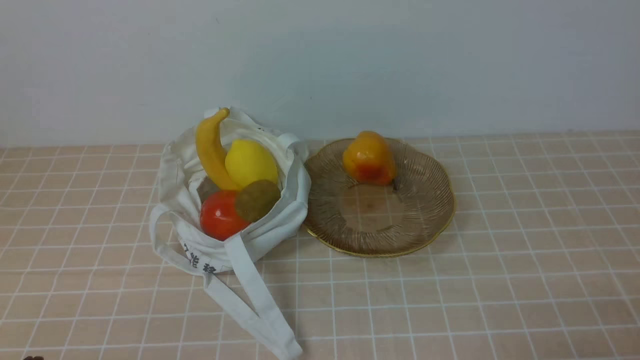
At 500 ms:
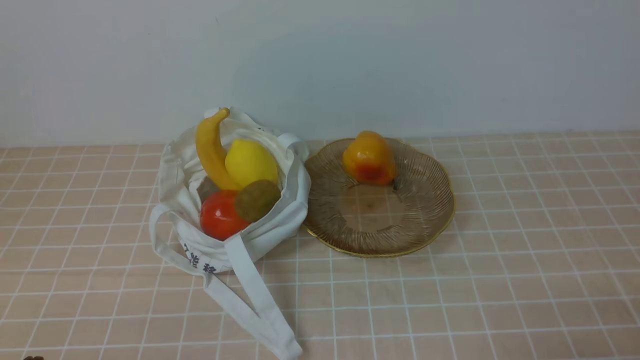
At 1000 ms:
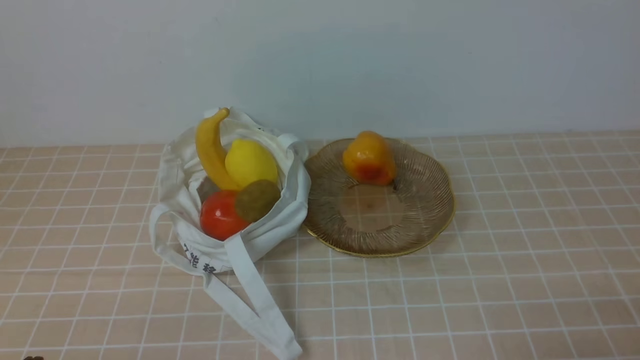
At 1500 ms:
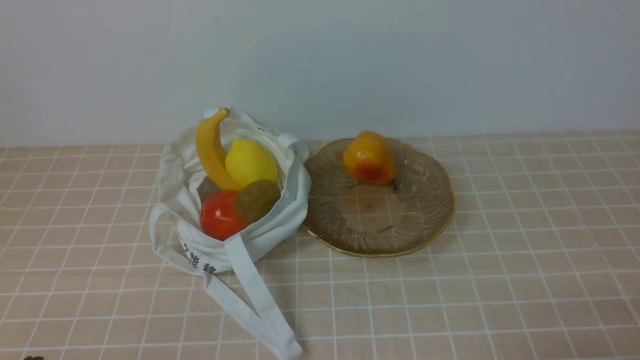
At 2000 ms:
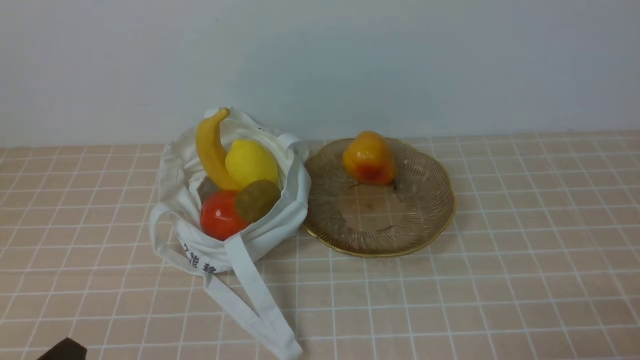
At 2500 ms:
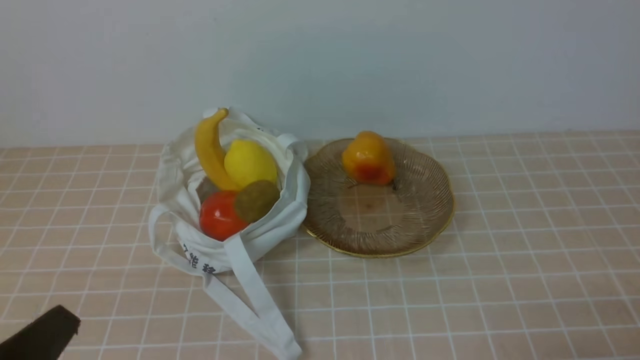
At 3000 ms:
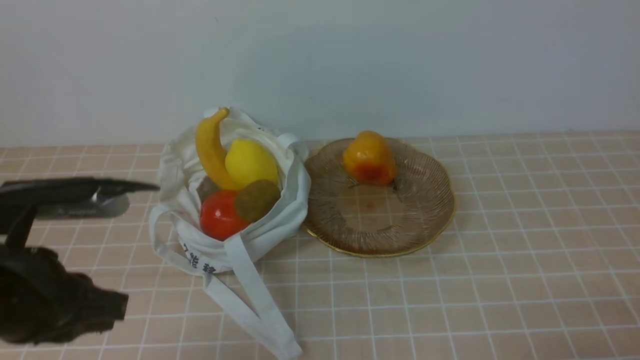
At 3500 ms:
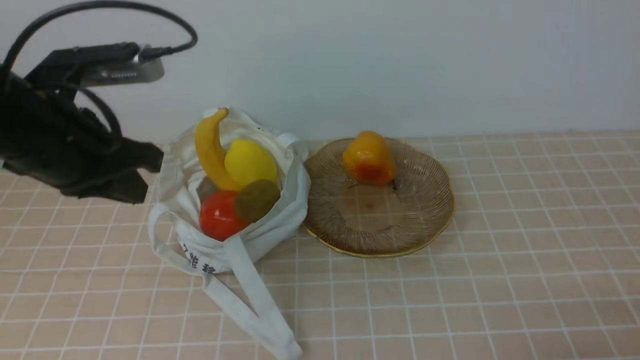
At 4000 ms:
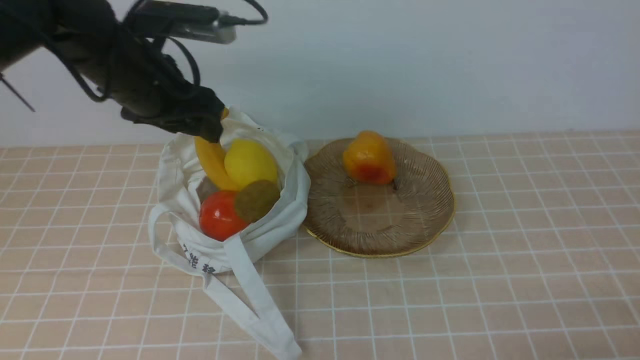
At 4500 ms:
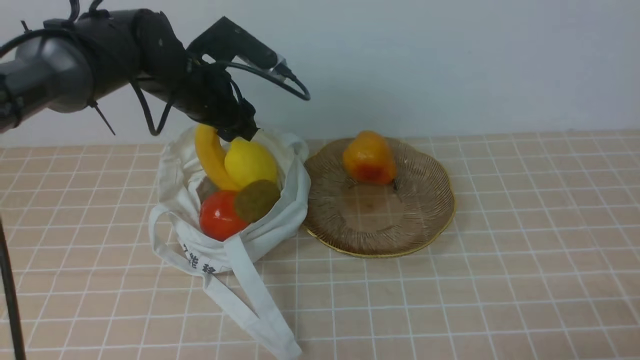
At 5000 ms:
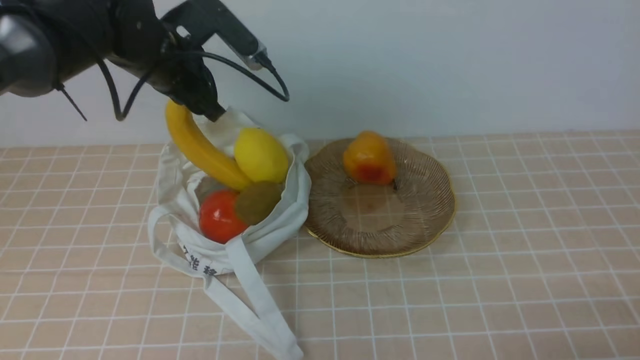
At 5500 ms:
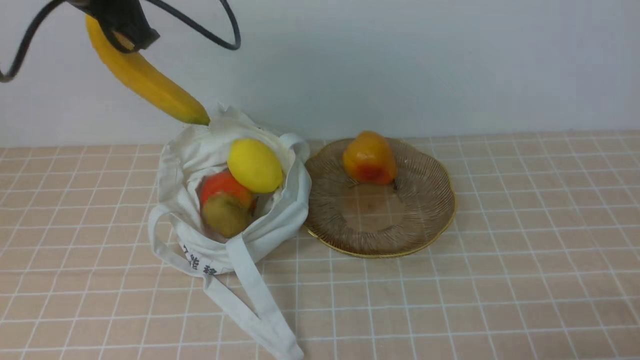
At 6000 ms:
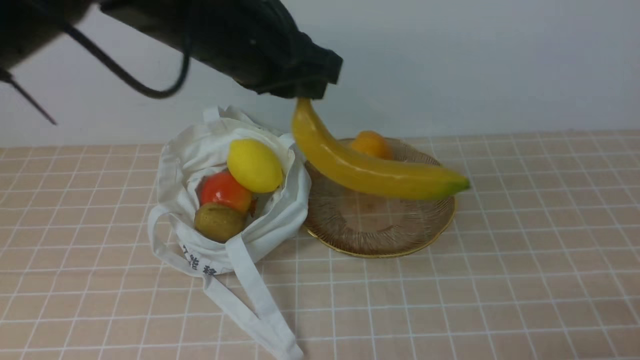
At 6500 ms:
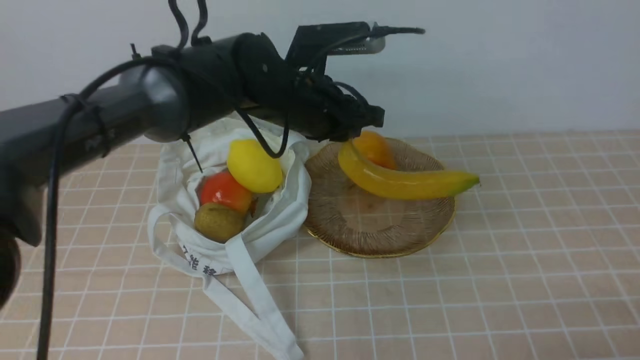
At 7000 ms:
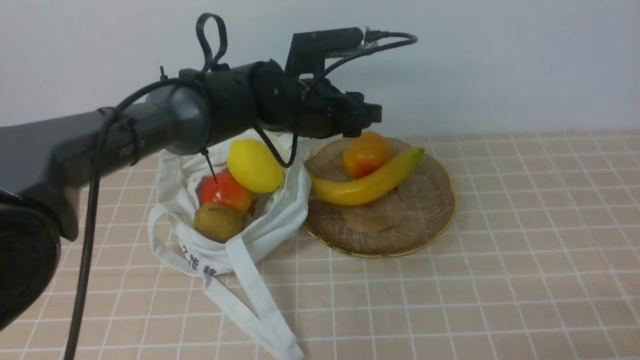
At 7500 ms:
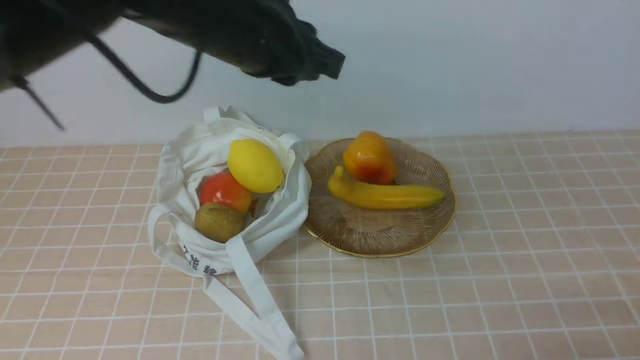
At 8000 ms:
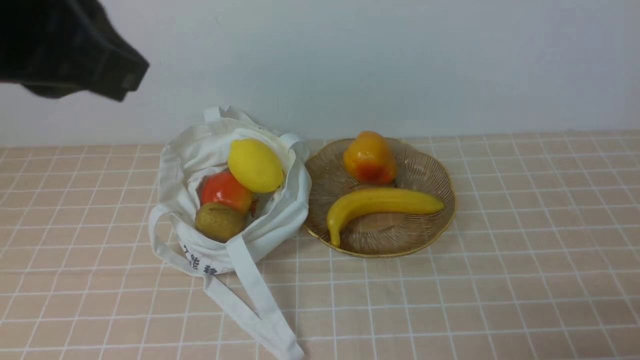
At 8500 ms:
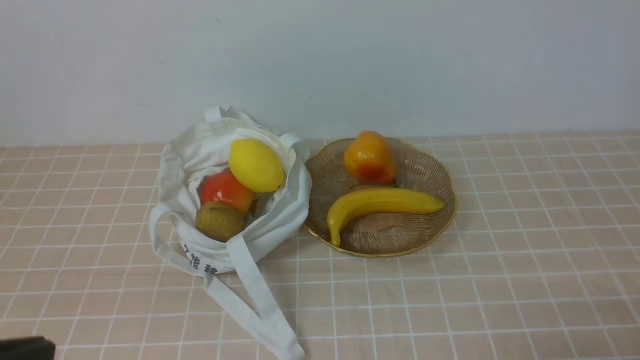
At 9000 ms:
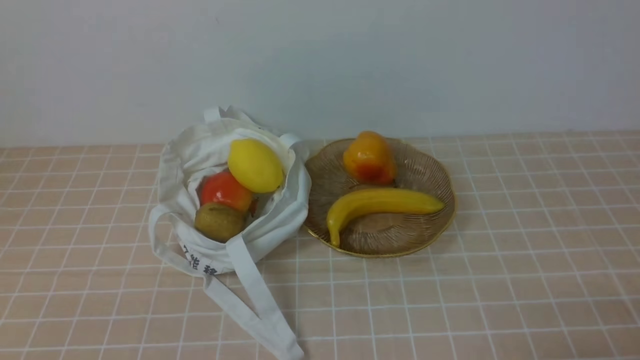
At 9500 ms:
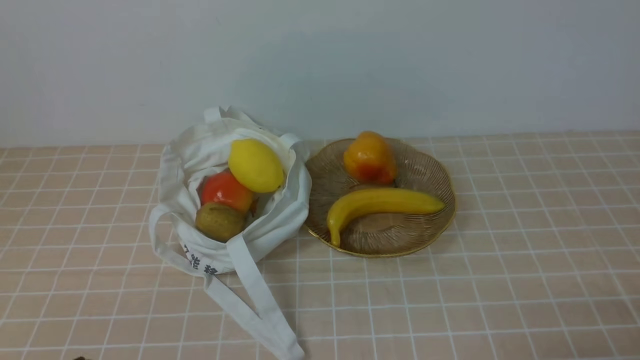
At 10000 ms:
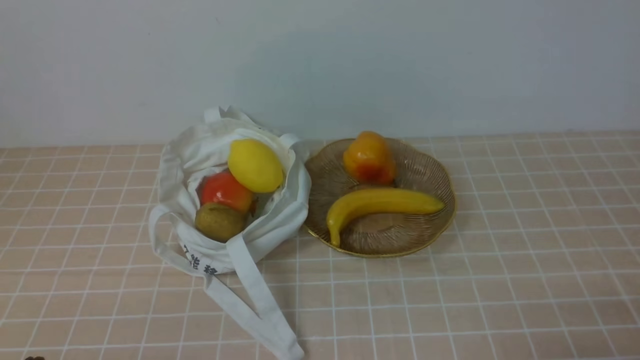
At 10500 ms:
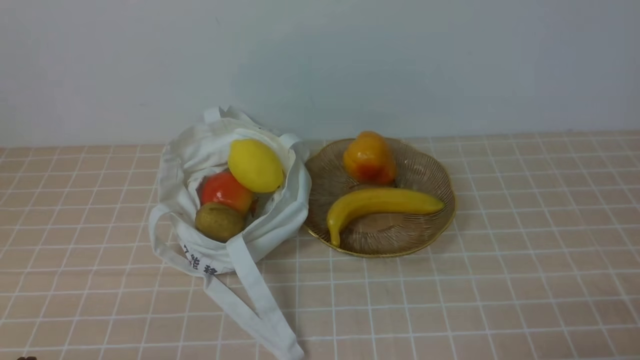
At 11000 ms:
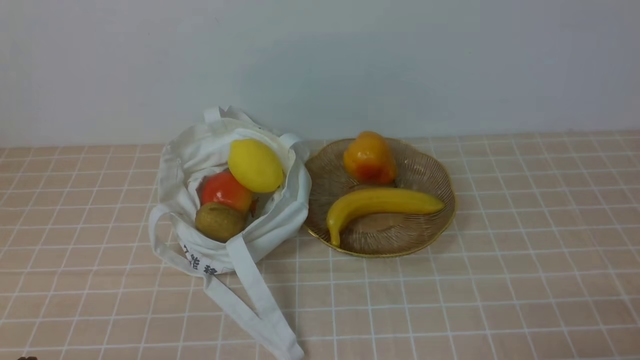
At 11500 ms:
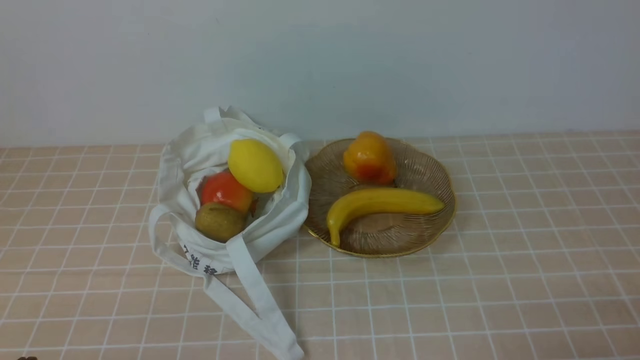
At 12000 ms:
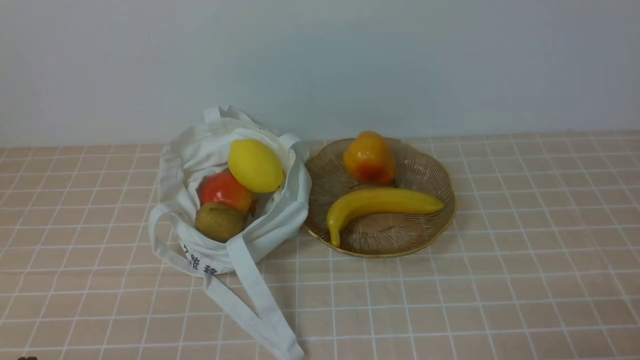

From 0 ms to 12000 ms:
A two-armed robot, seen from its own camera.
Step, from 0 ms to 5000 ms: use the left arm to grab a banana from the bag.
Step, from 5500 ms to 7000 ms: use the left arm to put the banana into the empty plate on the right.
From 2000 ms to 4000 ms: The left gripper shifts approximately 35 cm forward and upward, and opens its fingers.
From 4000 ms to 6000 ms: The left gripper travels to the right and upward by approximately 10 cm, and closes up.
From 6000 ms to 8000 ms: The left gripper moves backward and upward, approximately 15 cm, and opens and closes again.
From 8000 ms to 10000 ms: The left gripper heads downward and backward, covering some 30 cm.

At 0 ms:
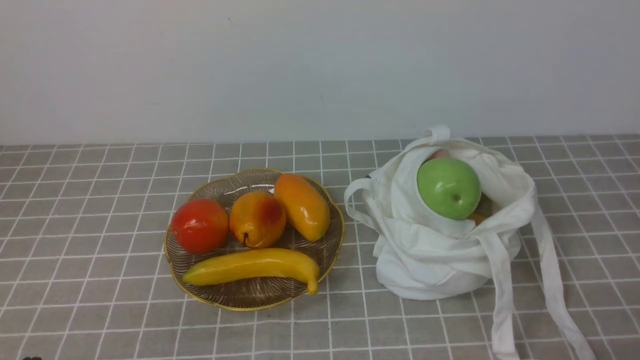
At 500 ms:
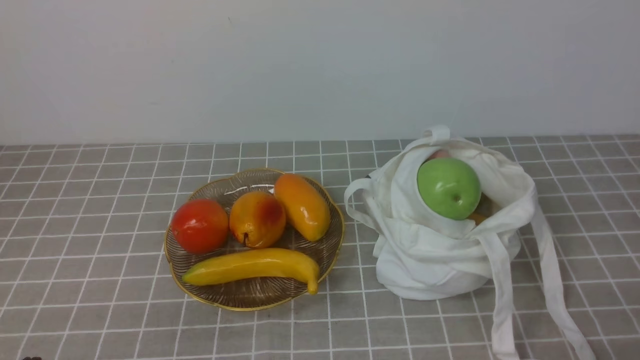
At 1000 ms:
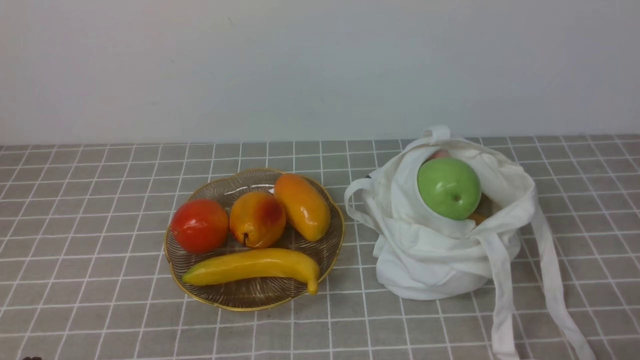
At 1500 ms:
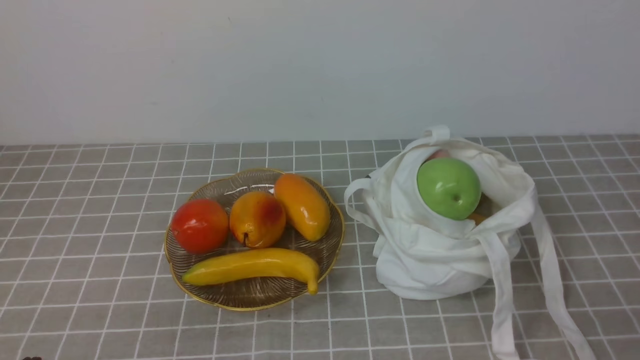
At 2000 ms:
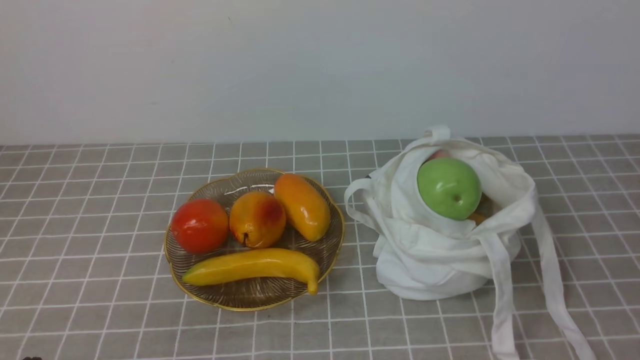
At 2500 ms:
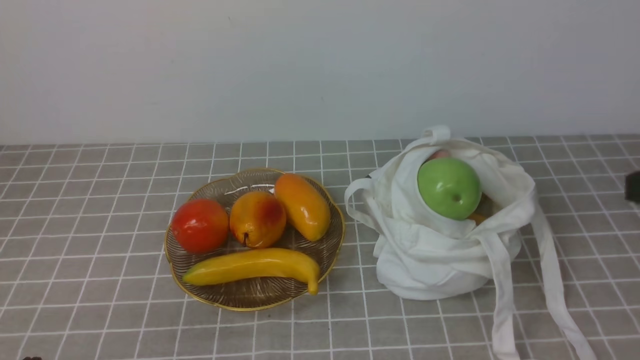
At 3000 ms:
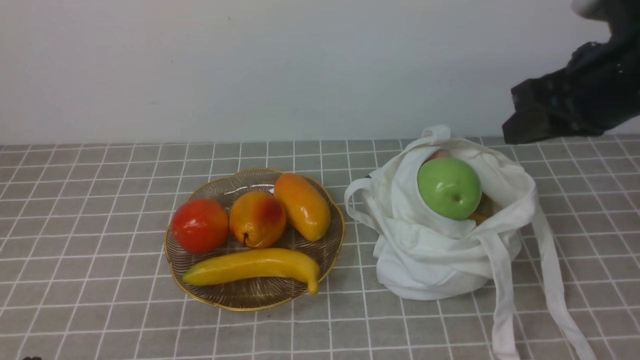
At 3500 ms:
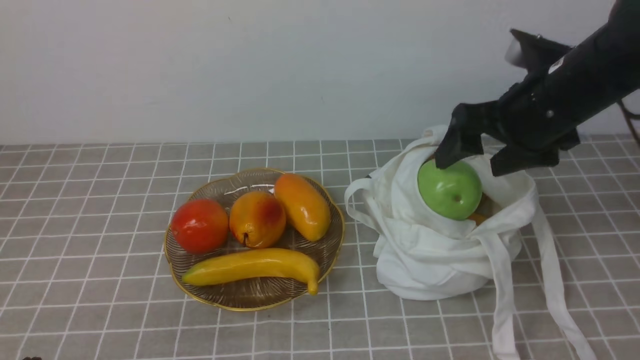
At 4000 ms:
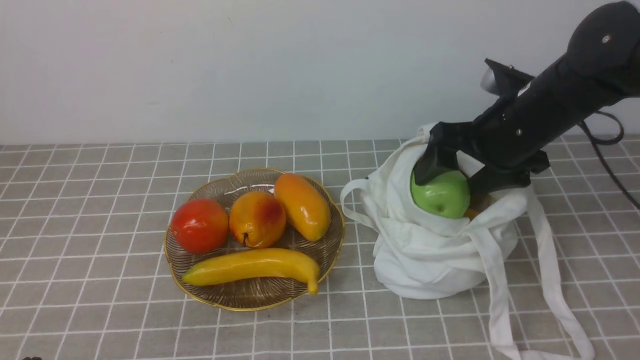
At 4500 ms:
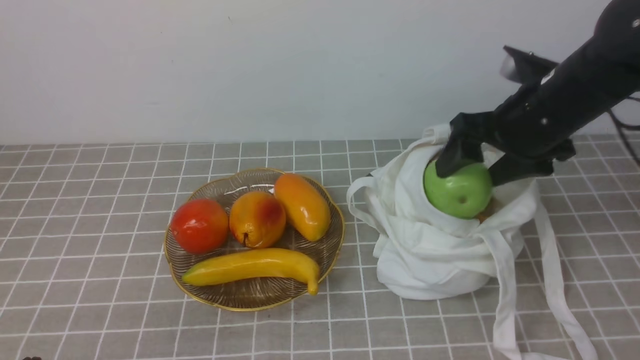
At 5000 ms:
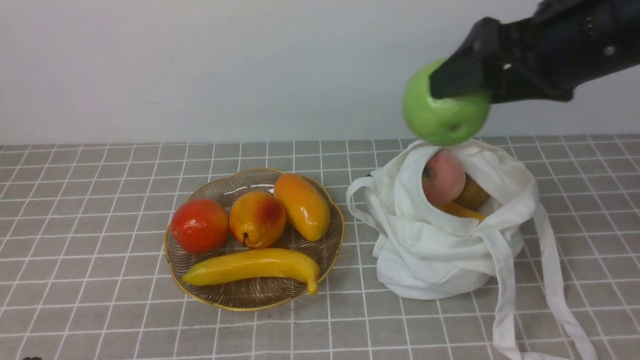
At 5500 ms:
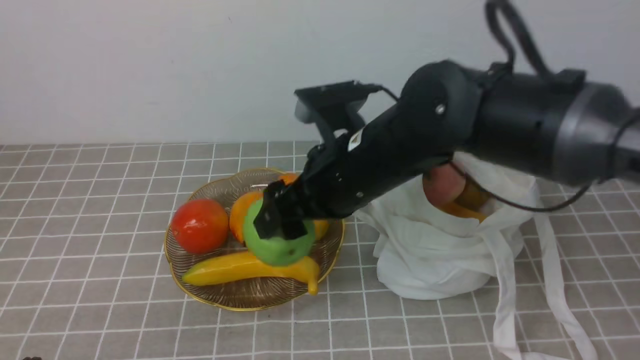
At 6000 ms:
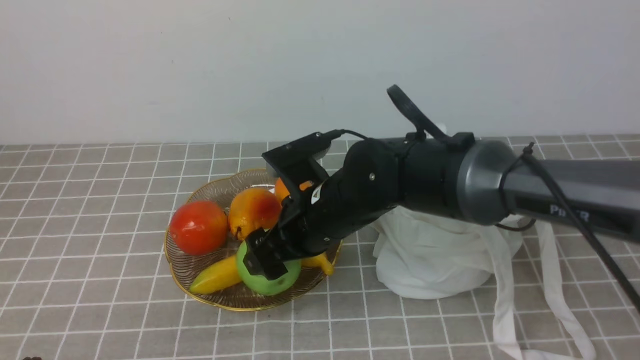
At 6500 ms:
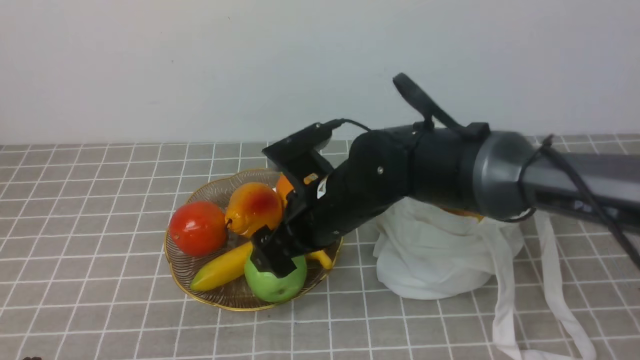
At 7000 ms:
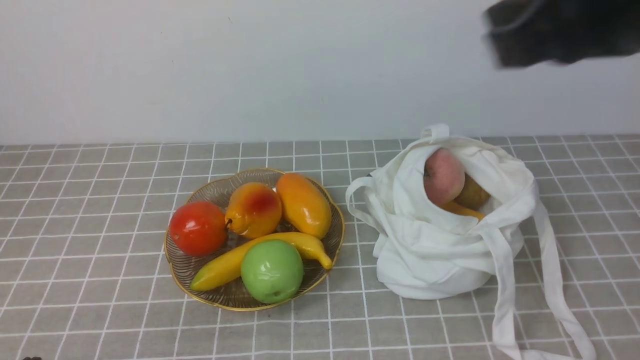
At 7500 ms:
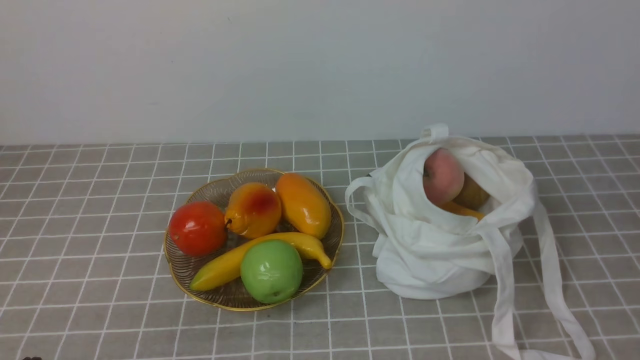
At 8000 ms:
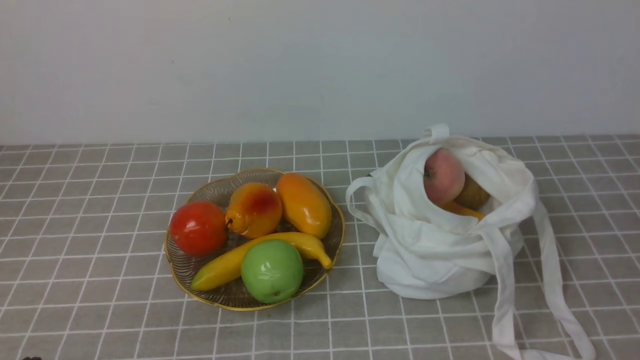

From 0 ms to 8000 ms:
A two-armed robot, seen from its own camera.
Step, from 0 ms to 4000 ms: use the right arm to grab an apple from the bag.
Step, from 4500 ms to 6000 ms: use the right arm to put the apple into the empty plate on the left.
From 2000 ms to 4000 ms: The right gripper goes roughly 30 cm forward, and opens its fingers.
From 4000 ms to 6000 ms: The right gripper moves to the left, about 20 cm.
From 6000 ms to 8000 ms: The right gripper shifts some 50 cm to the right, backward and upward, and closes.
